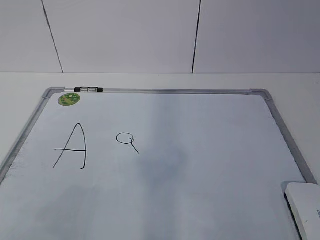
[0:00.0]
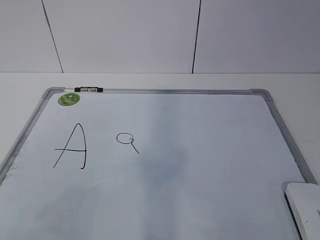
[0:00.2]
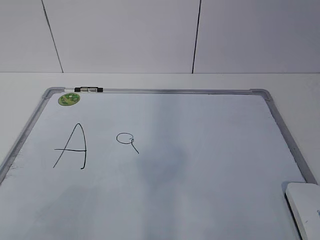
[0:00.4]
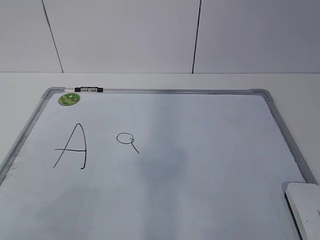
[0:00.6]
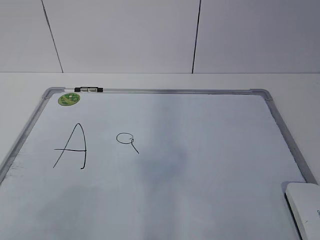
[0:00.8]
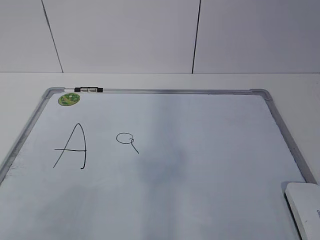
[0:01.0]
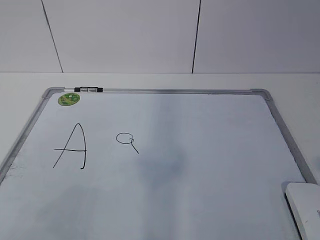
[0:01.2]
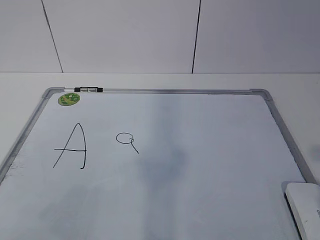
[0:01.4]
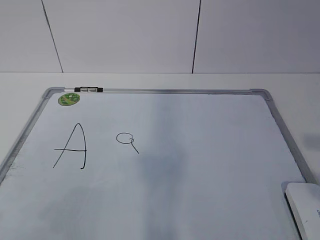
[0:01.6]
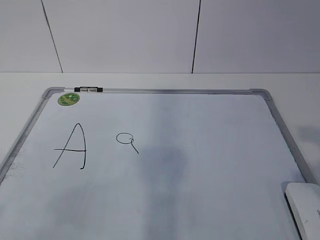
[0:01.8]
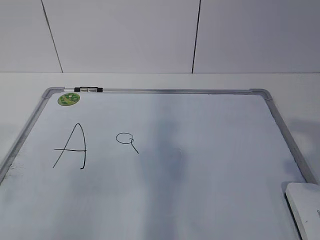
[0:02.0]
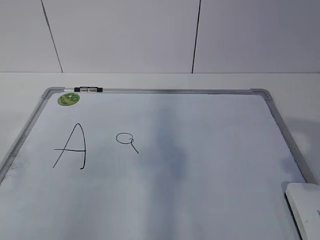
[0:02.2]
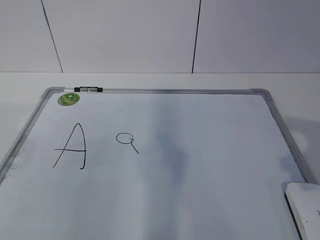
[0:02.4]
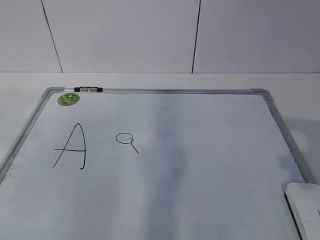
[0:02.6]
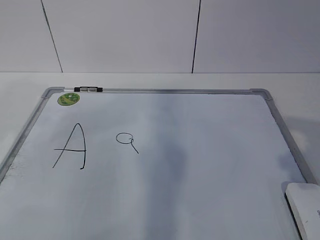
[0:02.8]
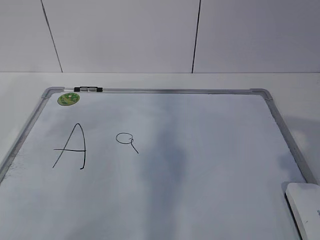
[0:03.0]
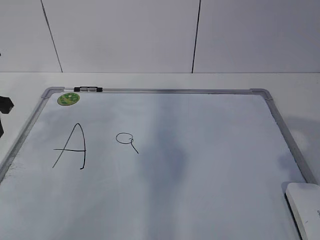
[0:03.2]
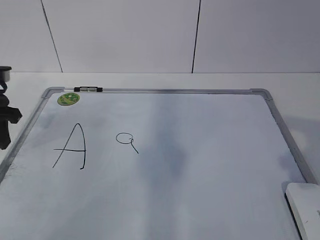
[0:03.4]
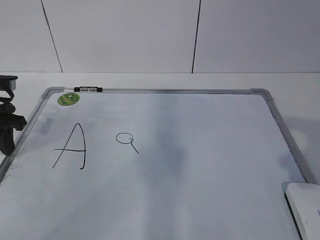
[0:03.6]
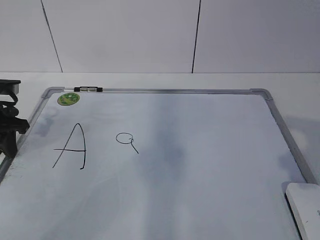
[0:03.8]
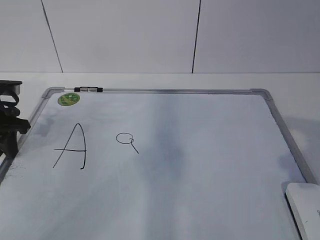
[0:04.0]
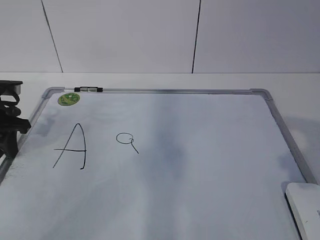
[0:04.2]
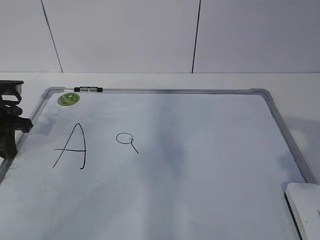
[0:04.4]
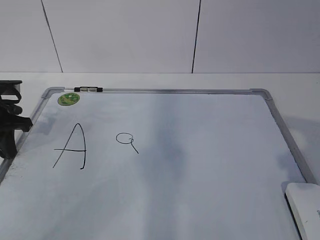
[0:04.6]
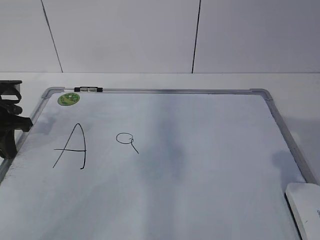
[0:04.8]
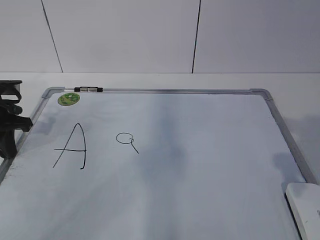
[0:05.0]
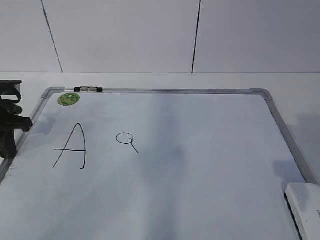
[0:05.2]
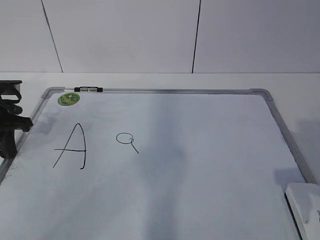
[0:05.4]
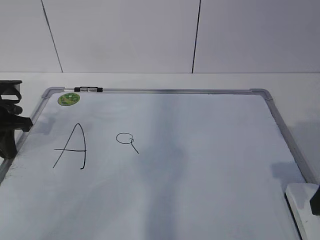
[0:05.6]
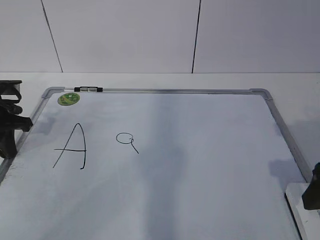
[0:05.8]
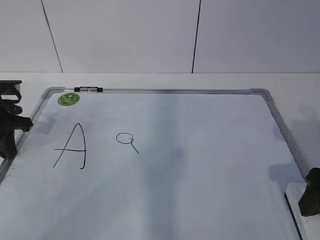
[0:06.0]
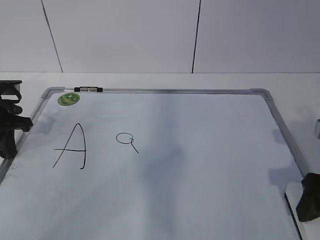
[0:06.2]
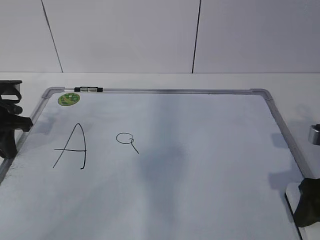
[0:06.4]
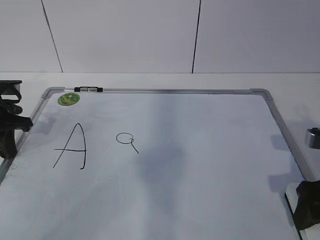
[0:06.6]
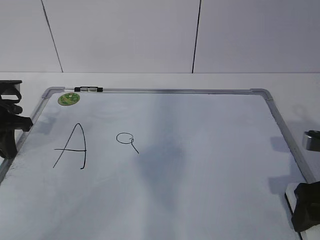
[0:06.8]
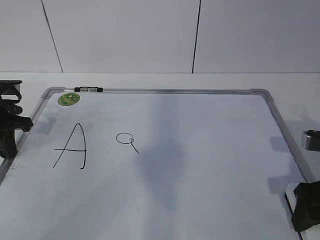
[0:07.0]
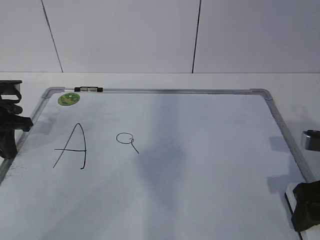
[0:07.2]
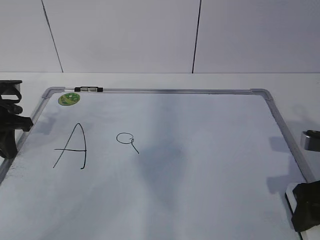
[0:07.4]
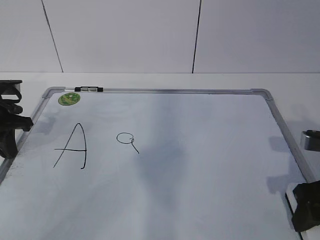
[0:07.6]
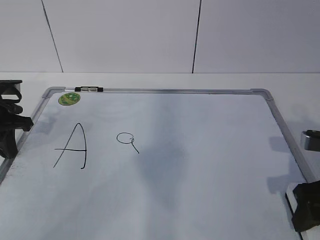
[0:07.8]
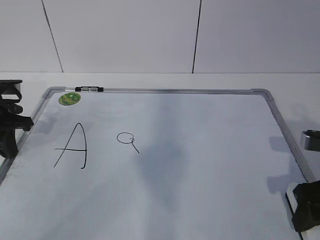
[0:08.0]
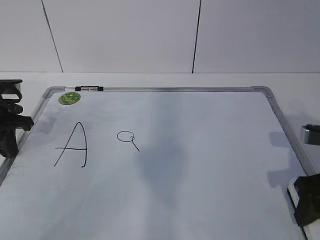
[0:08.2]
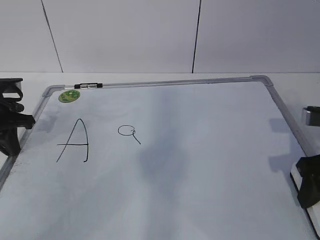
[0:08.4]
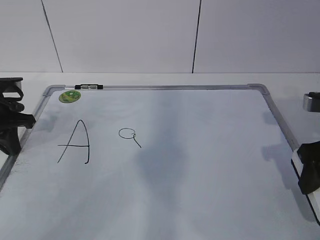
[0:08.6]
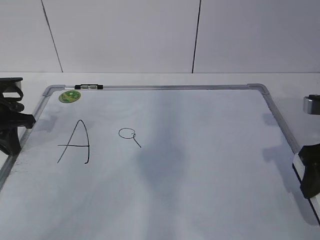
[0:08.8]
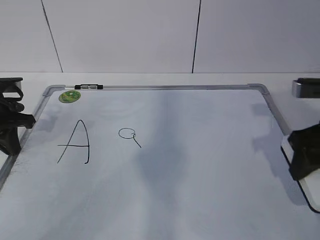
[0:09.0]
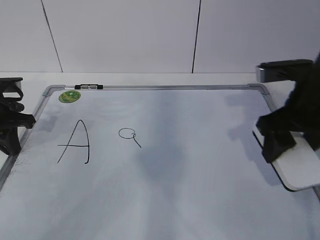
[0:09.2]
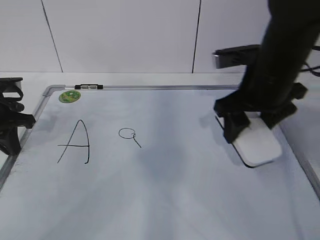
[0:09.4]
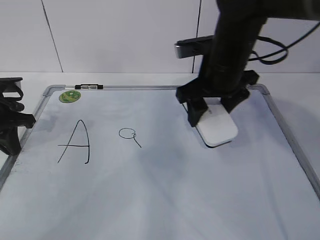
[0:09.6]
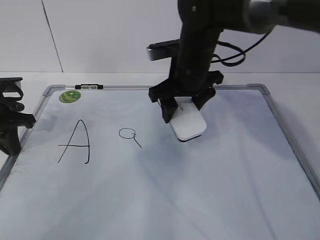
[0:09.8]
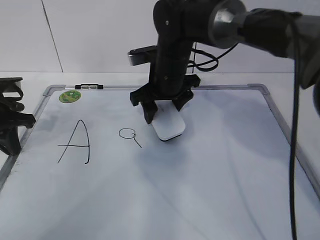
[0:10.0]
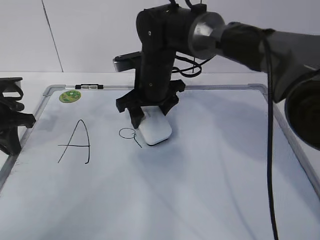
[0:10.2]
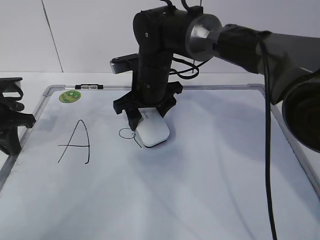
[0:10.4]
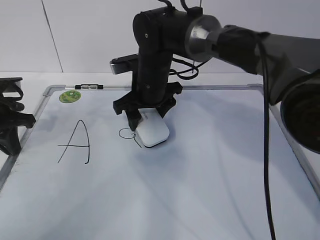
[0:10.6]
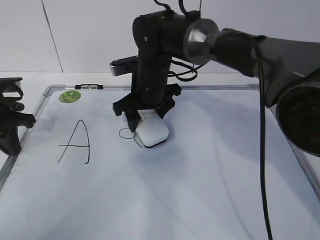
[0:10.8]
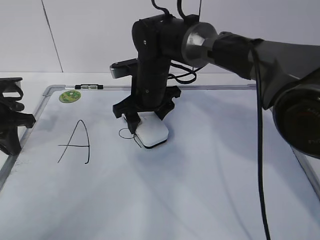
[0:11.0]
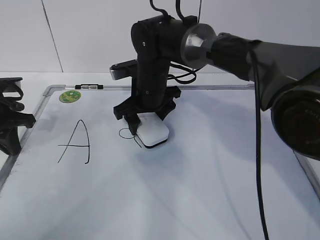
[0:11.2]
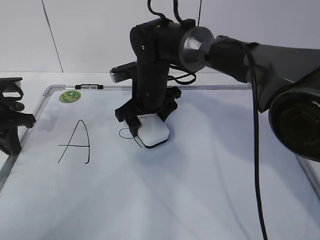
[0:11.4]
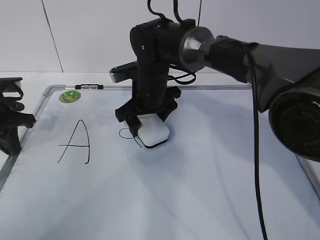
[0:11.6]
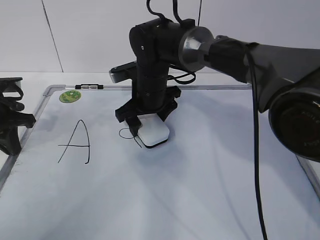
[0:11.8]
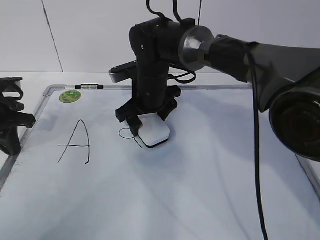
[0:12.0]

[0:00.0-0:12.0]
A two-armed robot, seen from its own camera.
Task of the whole recording: pick up the eraser on the blackboard and erase the letter "a".
Step, 0:00.0 to 0:03.6: Hold the drawing board steady with your left hand.
0:01.6 to 0:03.0: The left gripper shifts roughly 30 cm forward.
0:03.0 to 0:04.4: The left gripper is displaced downward and forward by some 10 cm, and closes up.
0:04.4 to 0:06.0: The right gripper travels downward and forward by some 15 cm, and opens.
0:06.0 to 0:07.6: The right gripper closes up.
0:07.6 to 0:09.0: The right gripper moves upward, some 5 cm.
0:09.0 to 0:10.4: The right gripper is displaced to the left and forward by roughly 30 cm.
0:10.4 to 0:12.0: The right gripper opens up.

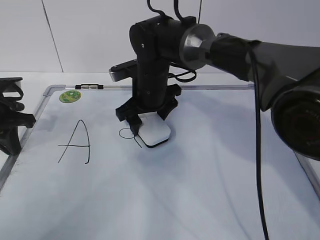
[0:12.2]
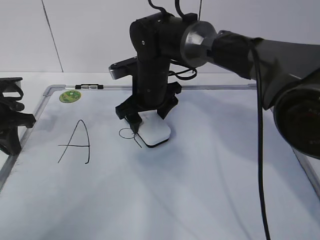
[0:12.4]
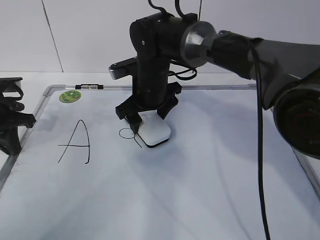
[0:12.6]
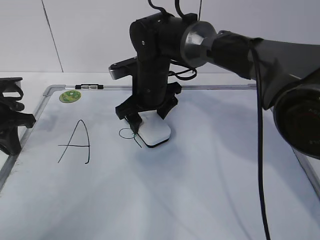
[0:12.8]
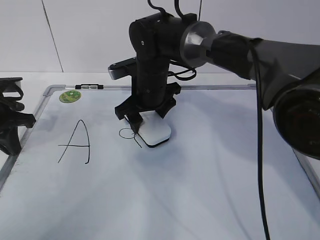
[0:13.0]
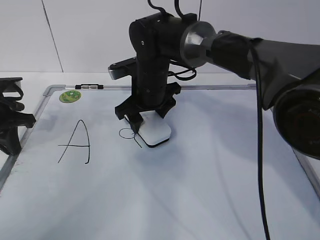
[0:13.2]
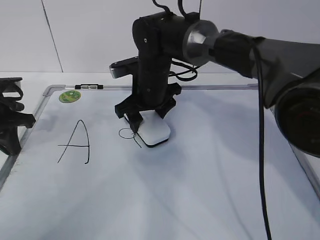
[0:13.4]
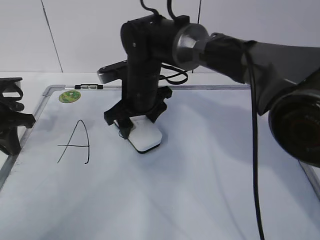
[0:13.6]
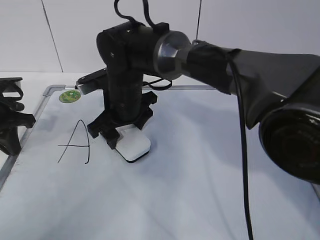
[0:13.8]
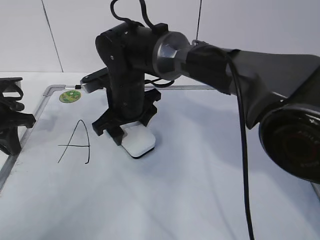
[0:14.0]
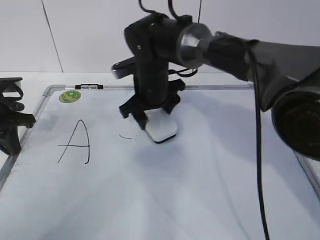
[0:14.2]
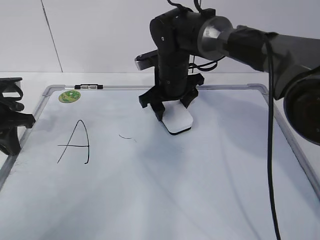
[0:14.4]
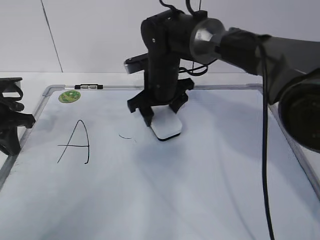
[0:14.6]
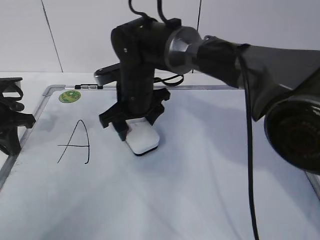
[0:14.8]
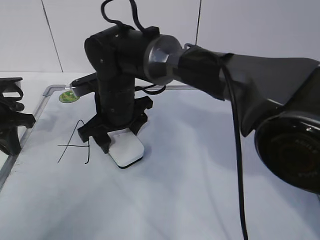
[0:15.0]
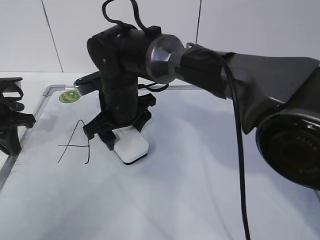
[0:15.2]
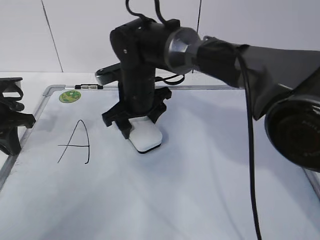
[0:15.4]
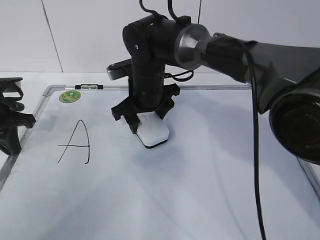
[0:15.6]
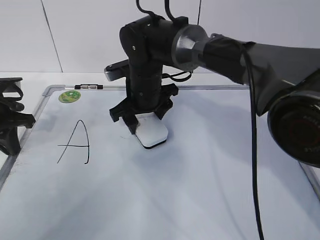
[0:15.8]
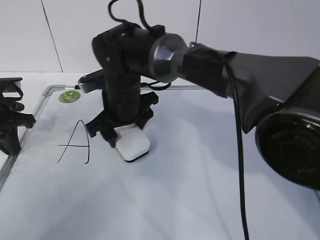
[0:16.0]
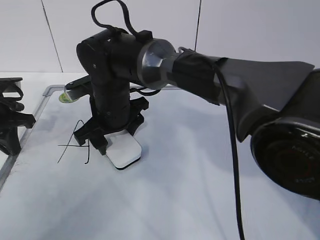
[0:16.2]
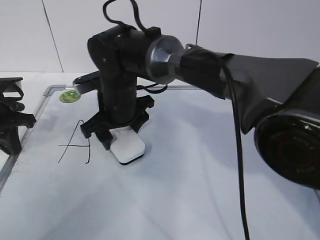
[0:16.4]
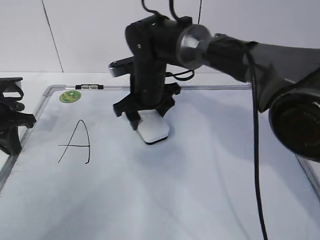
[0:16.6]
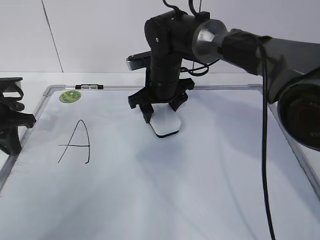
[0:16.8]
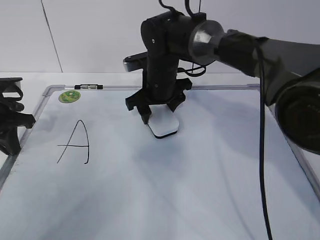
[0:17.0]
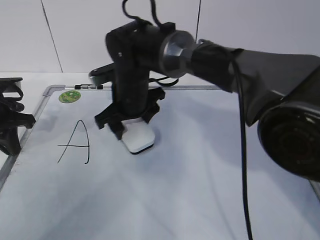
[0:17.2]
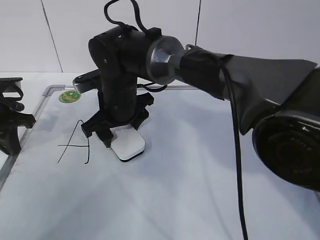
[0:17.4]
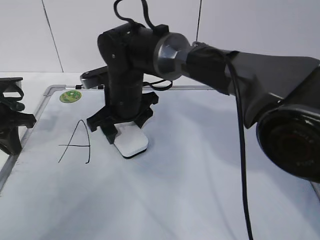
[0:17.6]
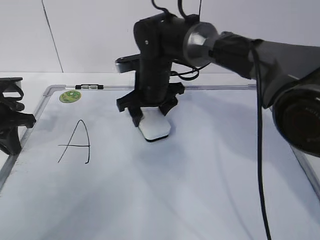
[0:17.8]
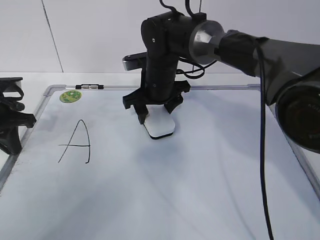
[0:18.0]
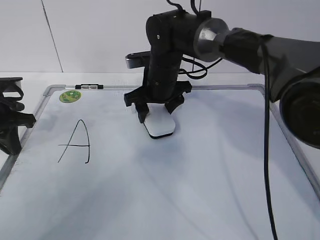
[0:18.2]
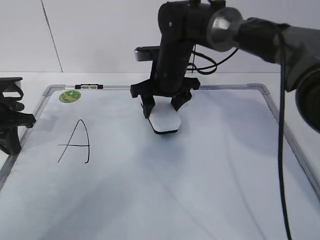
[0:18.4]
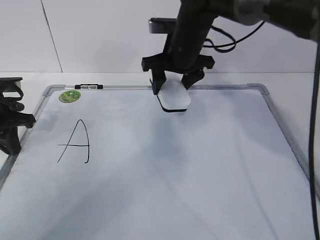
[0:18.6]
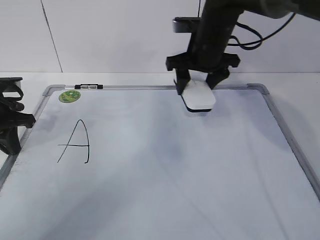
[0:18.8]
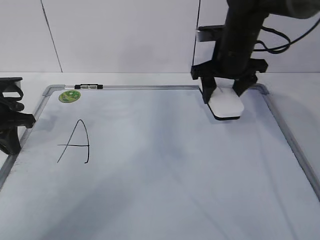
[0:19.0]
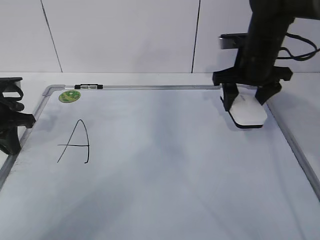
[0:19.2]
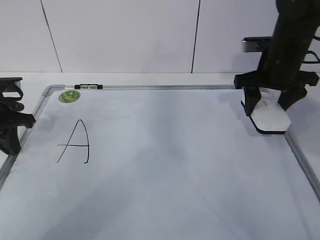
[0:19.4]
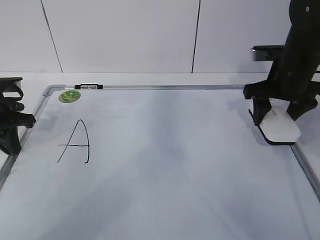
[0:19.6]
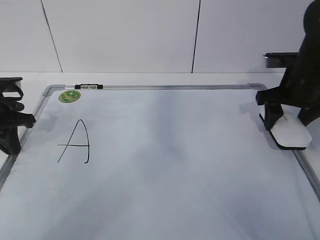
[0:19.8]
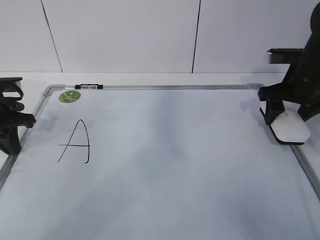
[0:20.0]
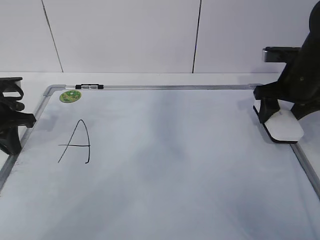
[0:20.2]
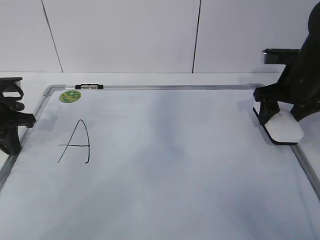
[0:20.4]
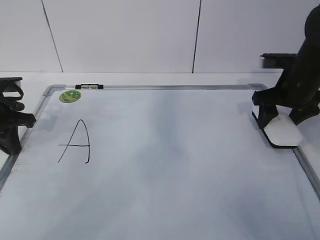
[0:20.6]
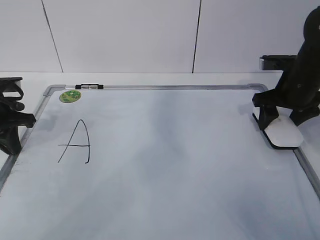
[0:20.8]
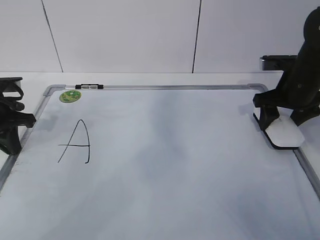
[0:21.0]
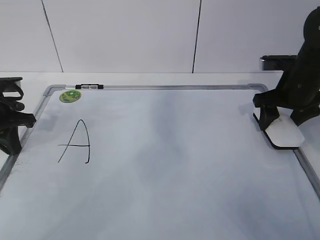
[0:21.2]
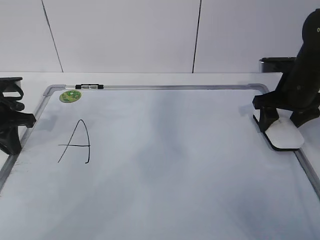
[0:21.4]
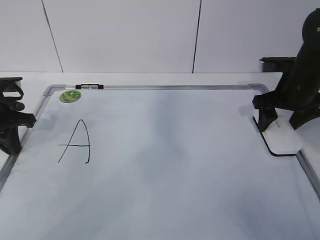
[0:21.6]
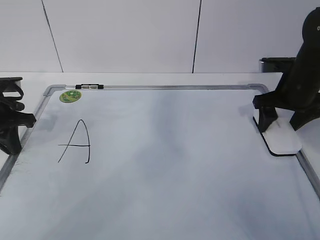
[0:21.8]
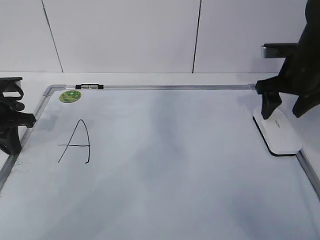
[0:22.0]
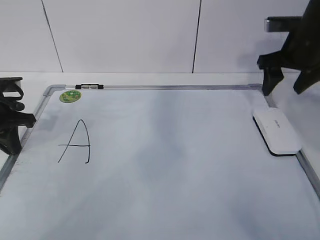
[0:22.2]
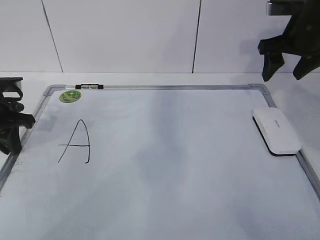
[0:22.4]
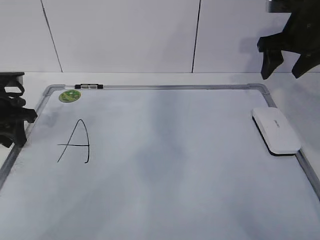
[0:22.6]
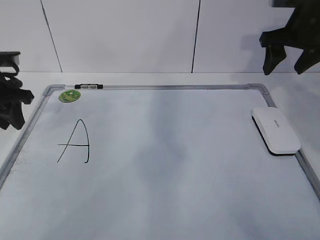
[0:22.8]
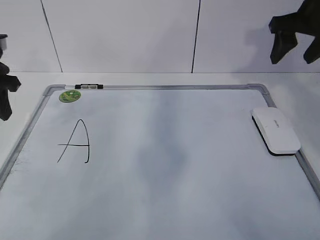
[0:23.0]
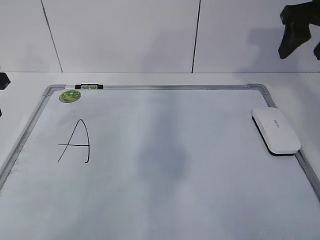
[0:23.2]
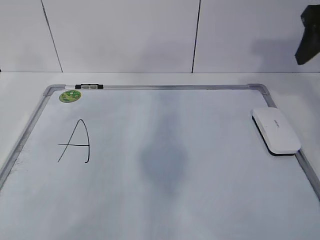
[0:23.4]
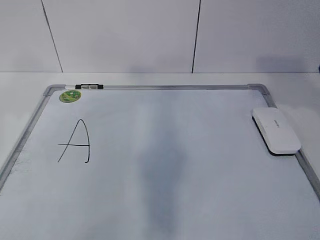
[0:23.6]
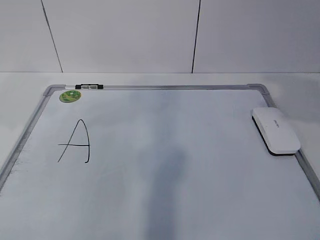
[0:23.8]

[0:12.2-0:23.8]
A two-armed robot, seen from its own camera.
Task of the whole recording: pick up the eraser on the blackboard and erase the letter "a".
Step, 0:12.2 to 0:15.0: Erase the letter a with your right hand.
Step, 0:15.2 to 0:17.8: Put down the eraser with your right hand.
0:12.2 to 0:13.6: The right gripper closes.
0:13.6 to 0:15.0: The right gripper shifts by some 5 cm.
0:15.0 to 0:16.6: The right gripper goes left and right, some 5 cm each way, reversing 2 times.
0:16.6 to 0:18.0: The right gripper travels to the left and back again, approximately 5 cm each way.
0:18.0 to 0:19.4: The right gripper travels to the right by approximately 20 cm.
0:19.4 to 0:21.0: The right gripper ends up some 5 cm from where it was.
0:21.0 to 0:22.4: The right gripper travels upward by about 10 cm.
0:22.4 to 0:23.8: The right gripper is displaced backward and upward by some 25 cm. The left gripper moves upward and backward, approximately 20 cm, and opens up.
